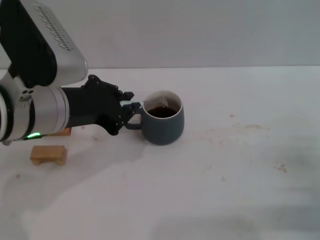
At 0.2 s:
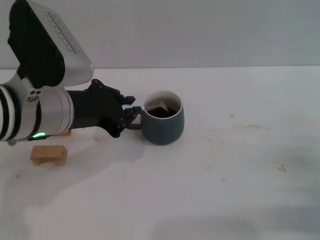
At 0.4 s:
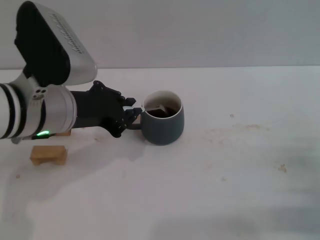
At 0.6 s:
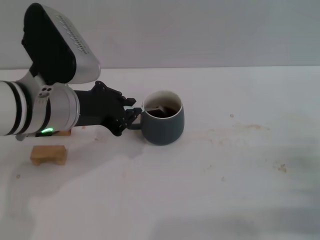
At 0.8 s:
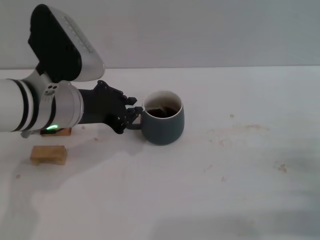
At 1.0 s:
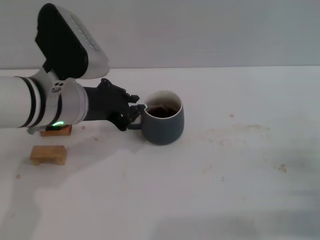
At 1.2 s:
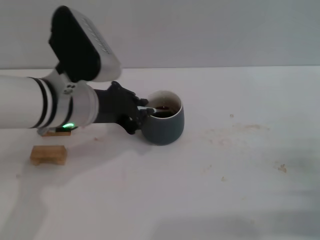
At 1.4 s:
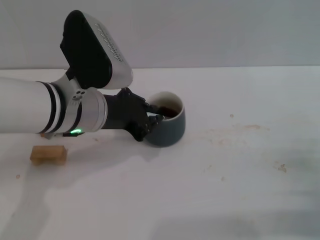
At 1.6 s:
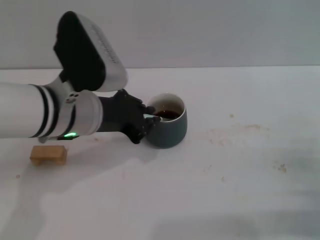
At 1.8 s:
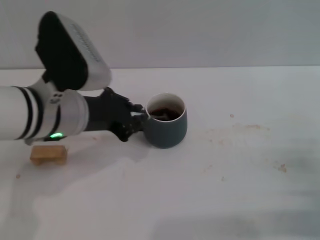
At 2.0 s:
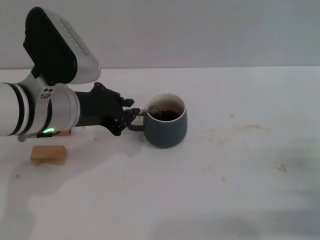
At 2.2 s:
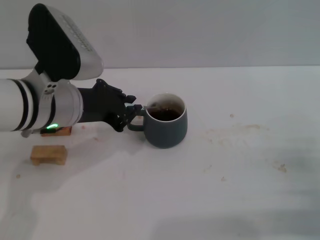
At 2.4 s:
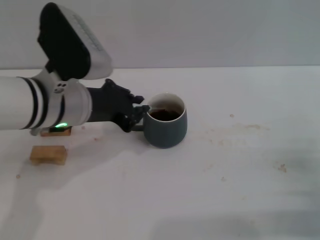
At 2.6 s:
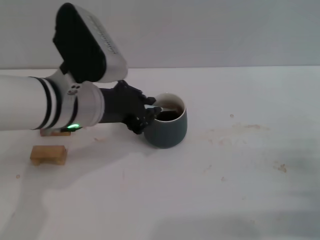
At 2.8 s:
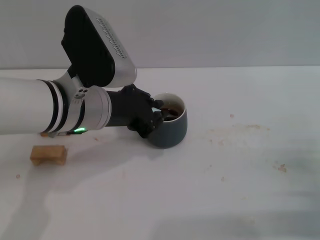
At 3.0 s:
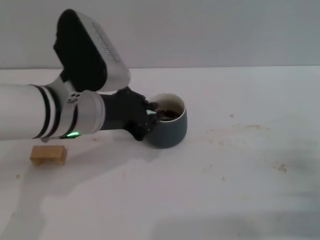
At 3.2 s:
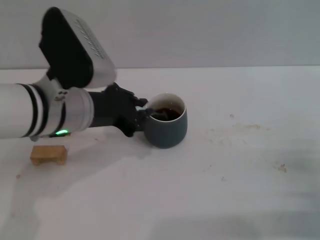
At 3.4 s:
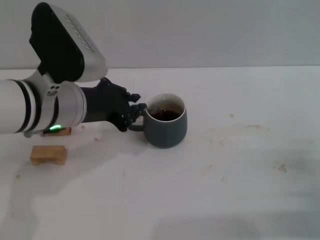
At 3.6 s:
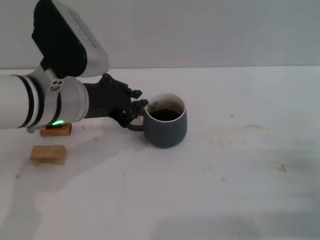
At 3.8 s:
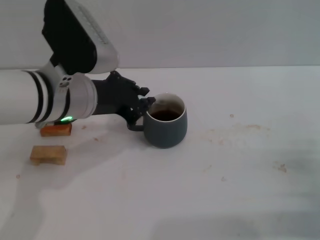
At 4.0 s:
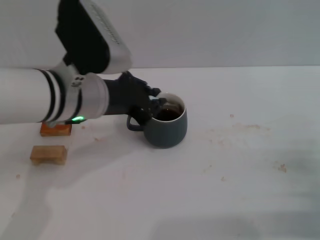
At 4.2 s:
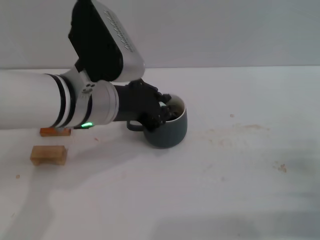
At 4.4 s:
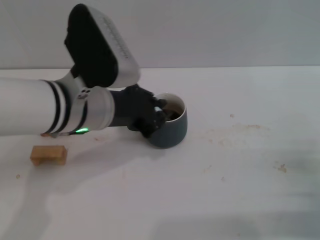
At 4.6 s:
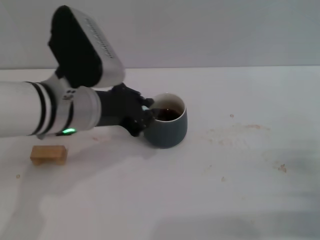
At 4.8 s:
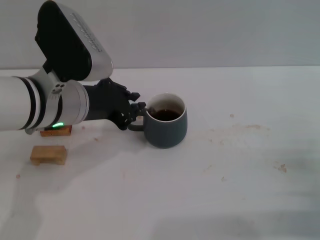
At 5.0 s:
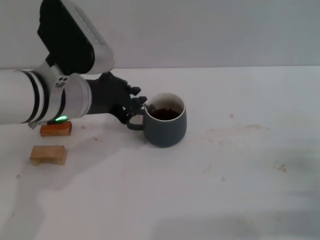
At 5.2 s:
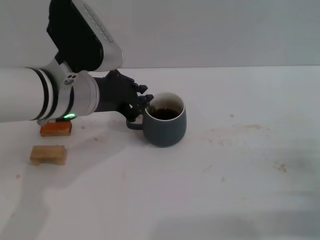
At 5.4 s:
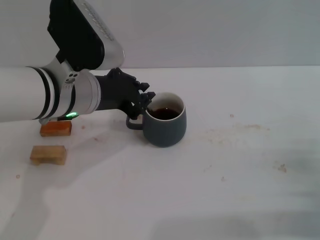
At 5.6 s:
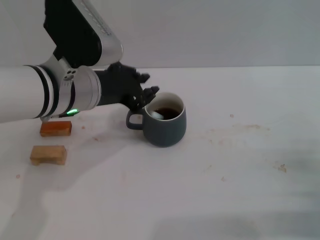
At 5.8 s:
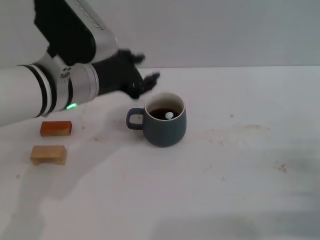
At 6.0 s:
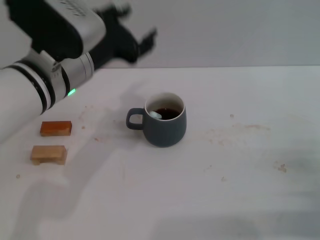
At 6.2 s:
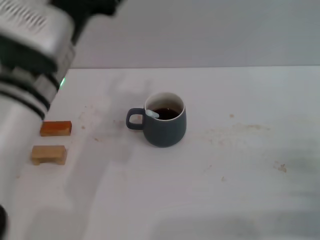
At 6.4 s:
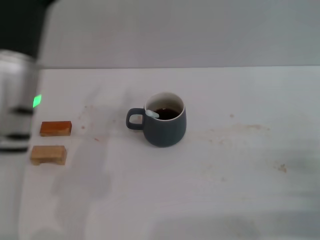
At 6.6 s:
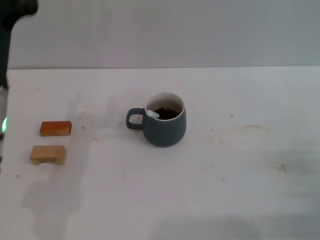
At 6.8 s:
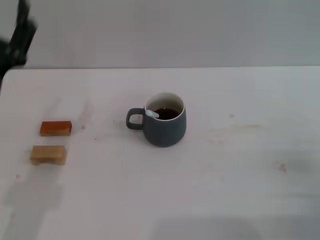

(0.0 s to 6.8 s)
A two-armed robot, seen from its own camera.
Task of the whole recording: Move the grey cup to the center, lift the blue spoon, stir it three times in the cup, and put the spoon into the cup.
Step, 0.0 s - 5.6 s: Stir the coffee in the cup with the left gripper.
0.0 s - 1.4 s: The left gripper ends up some 5 cm from where it was.
1.4 s - 5.4 s: The grippers stay close to where they were, moving slightly.
5.4 s - 6.8 s: The left gripper is displaced to the left, backward and downward by some 15 cm, and opens.
